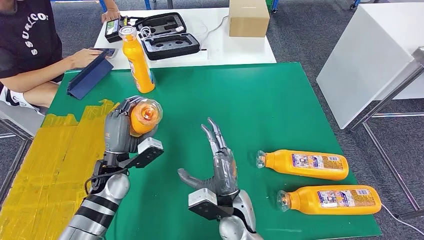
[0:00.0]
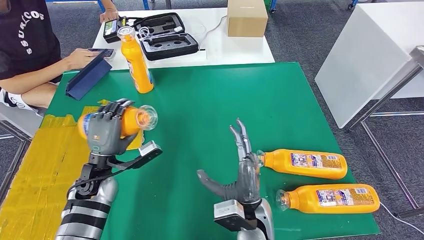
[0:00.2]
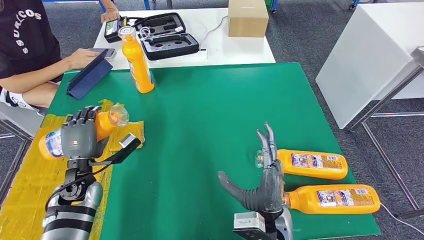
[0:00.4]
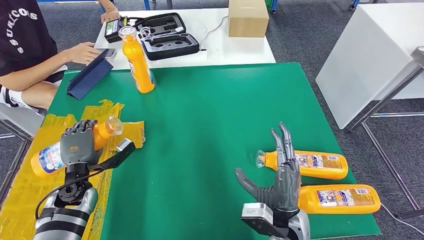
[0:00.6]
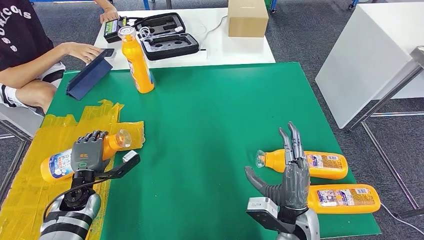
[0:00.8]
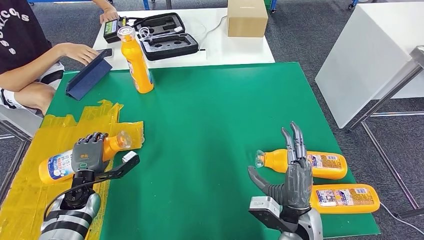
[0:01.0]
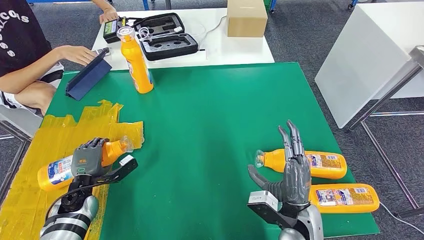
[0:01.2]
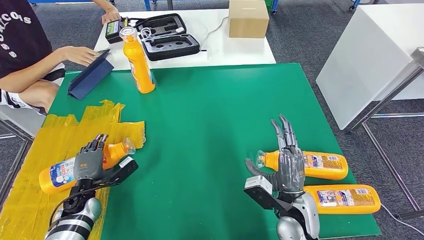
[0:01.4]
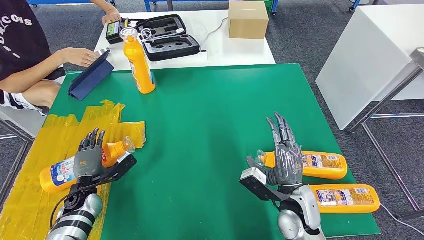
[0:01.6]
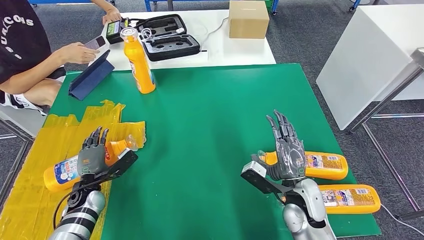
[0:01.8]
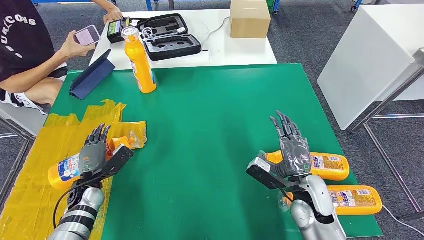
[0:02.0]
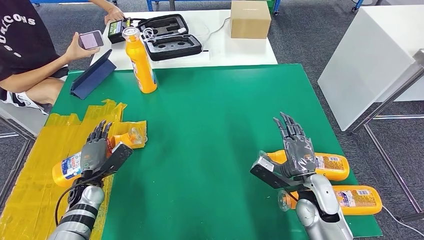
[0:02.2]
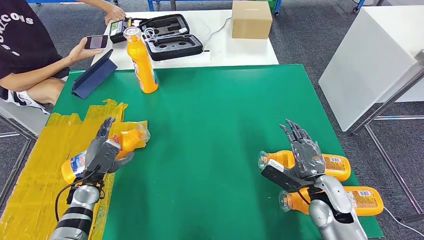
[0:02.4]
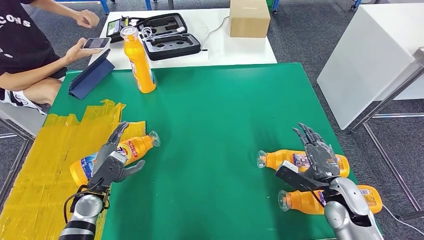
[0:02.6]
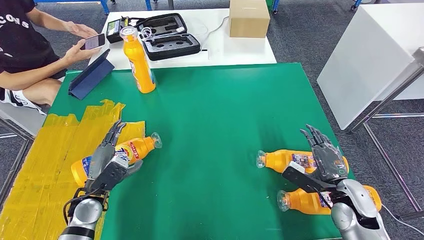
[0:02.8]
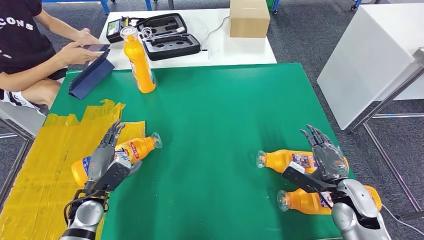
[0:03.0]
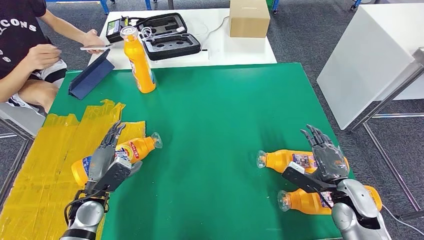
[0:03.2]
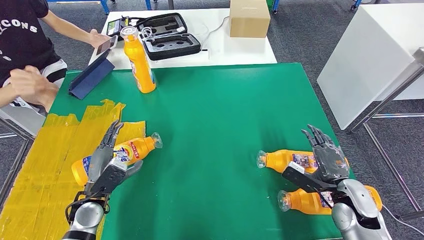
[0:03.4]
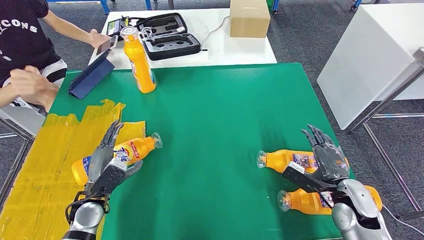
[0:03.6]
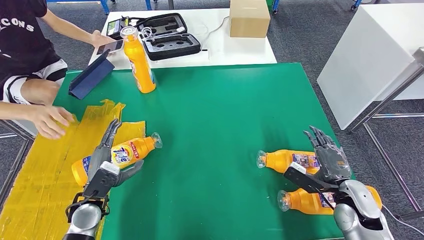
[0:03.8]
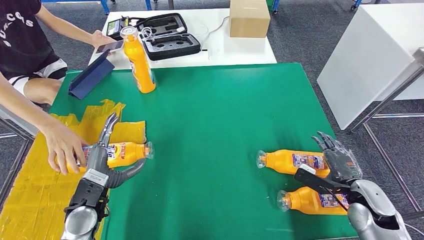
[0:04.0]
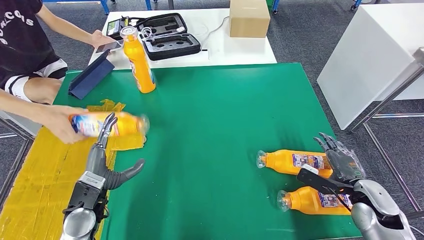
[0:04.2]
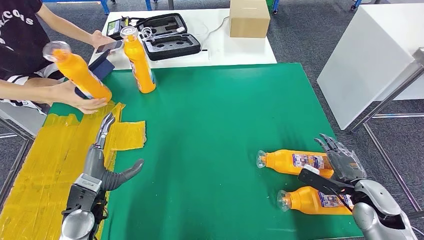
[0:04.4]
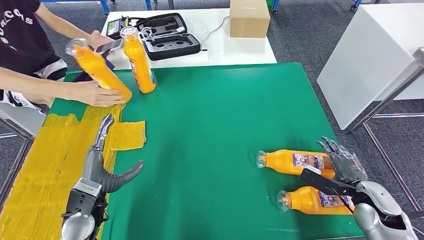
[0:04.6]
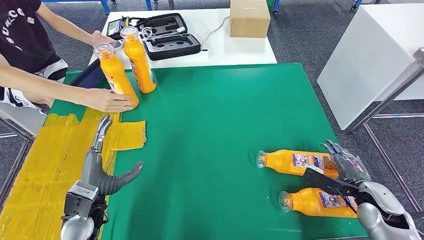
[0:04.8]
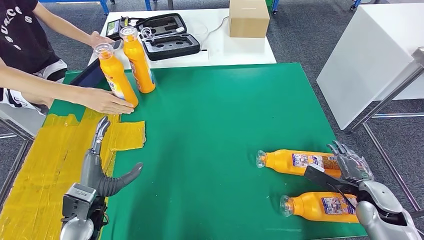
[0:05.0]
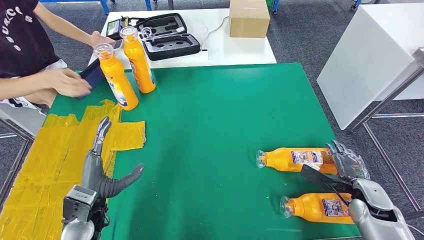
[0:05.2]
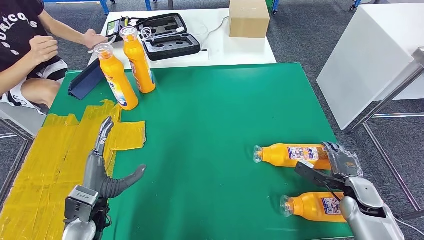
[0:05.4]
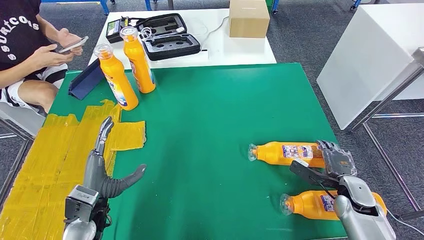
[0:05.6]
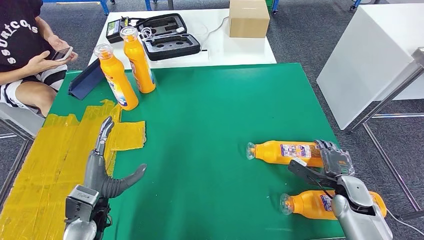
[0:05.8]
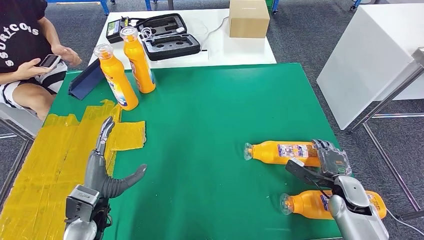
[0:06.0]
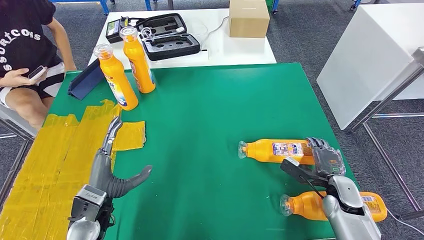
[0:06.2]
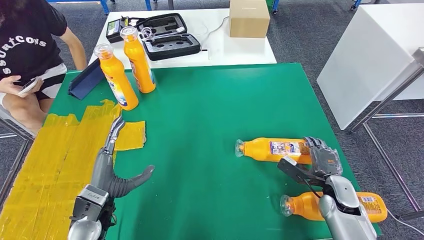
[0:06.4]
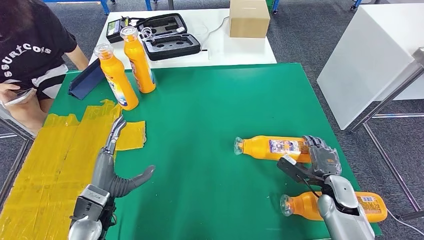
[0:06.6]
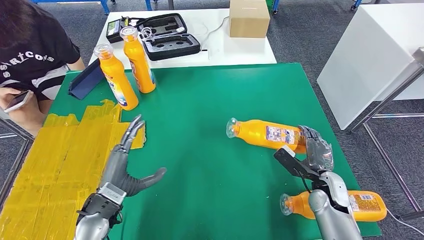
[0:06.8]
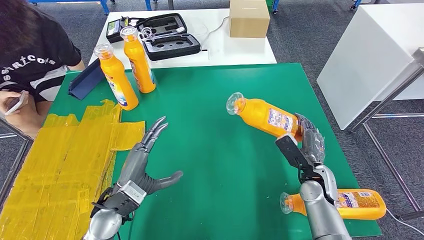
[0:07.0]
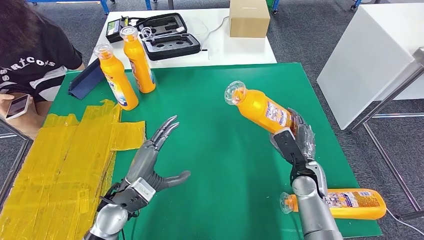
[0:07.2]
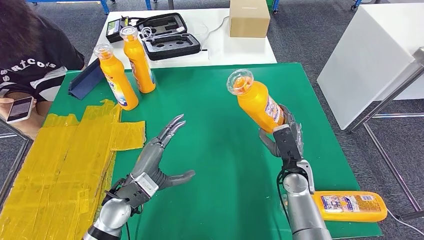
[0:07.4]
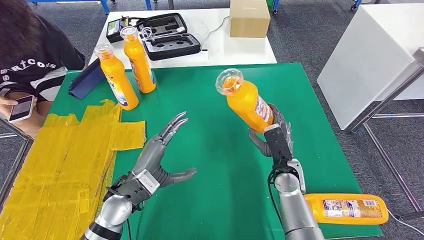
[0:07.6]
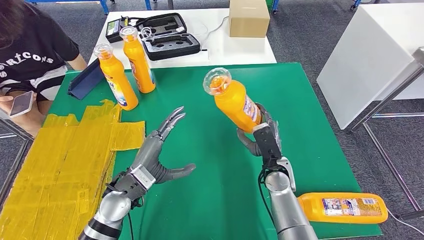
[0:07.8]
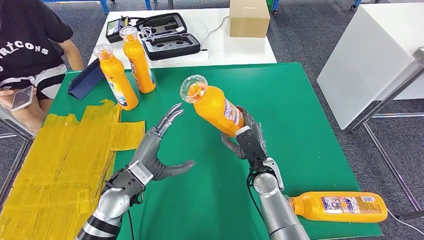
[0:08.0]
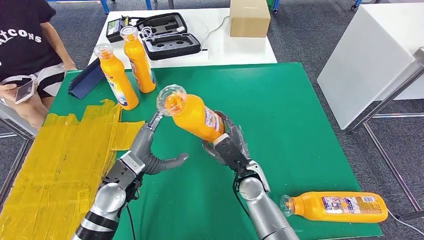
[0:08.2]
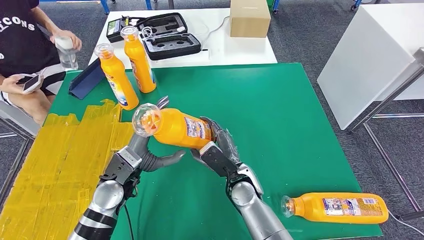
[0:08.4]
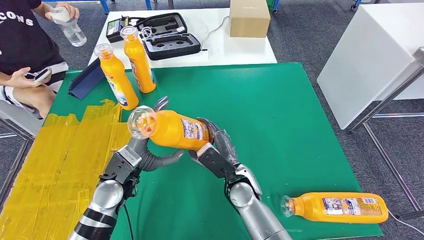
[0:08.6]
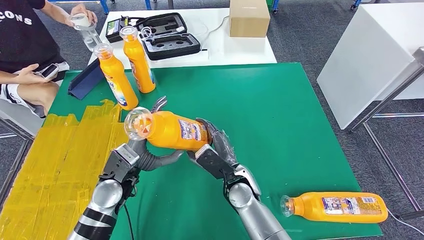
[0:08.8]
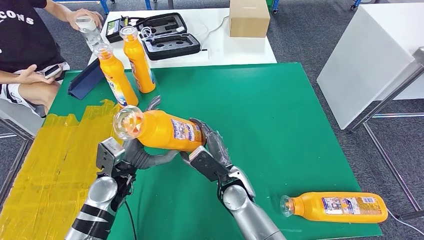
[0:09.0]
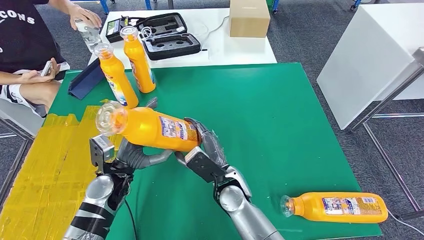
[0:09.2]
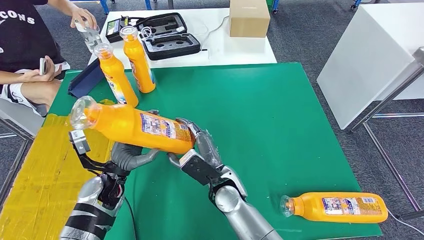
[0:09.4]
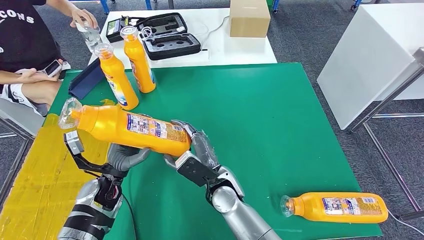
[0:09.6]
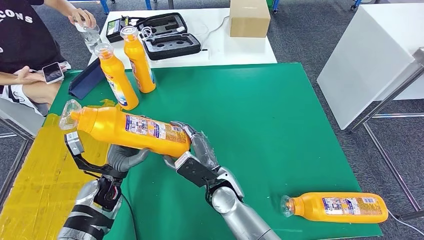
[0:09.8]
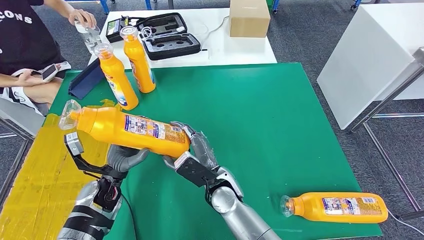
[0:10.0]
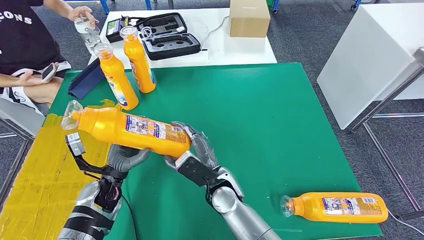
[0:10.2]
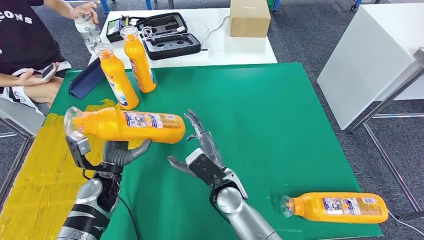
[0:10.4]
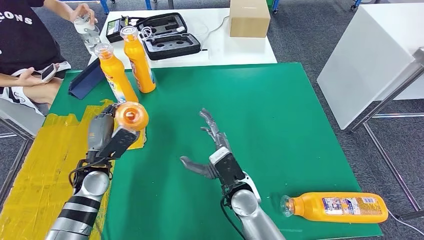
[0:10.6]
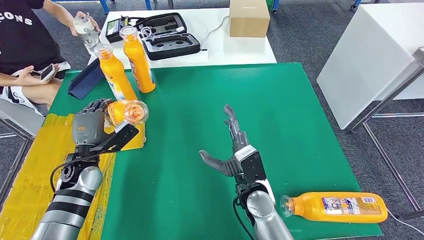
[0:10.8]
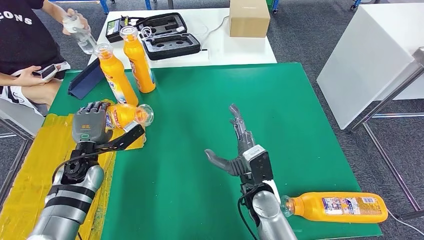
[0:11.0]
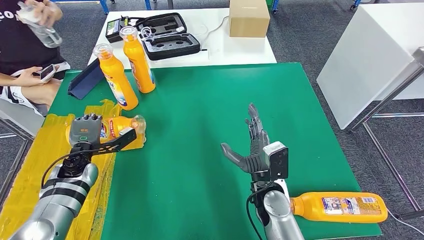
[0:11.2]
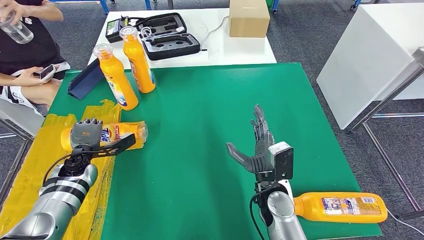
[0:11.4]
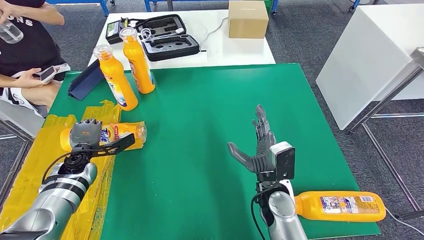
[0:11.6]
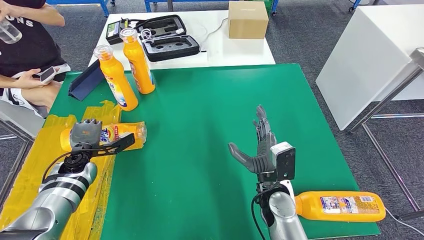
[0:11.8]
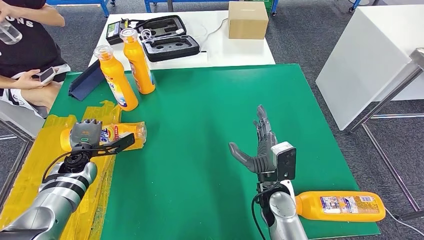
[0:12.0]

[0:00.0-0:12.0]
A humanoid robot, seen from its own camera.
Step, 0:00.0 to 0:02.8: Flip the fast-moving consumer goods bottle to the front side.
Step, 0:06.6 to 0:09.2: Pick up the fast-moving consumer goods bottle from the table.
0:03.0 to 0:04.4: The right hand goes approximately 5 cm to the right.
0:04.4 to 0:06.0: The right hand heads downward, covering roughly 5 cm.
0:09.0 to 0:10.4: The left hand shifts by roughly 5 cm.

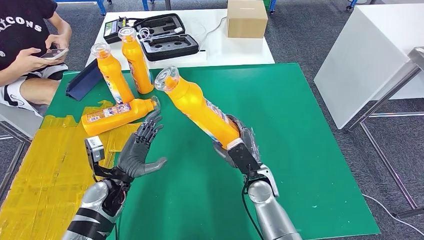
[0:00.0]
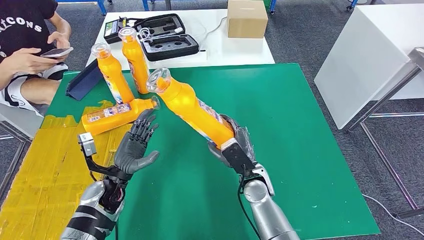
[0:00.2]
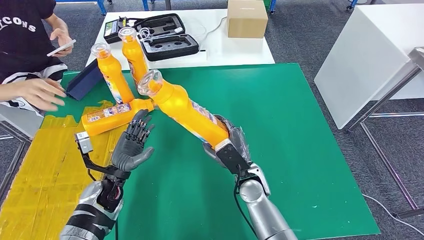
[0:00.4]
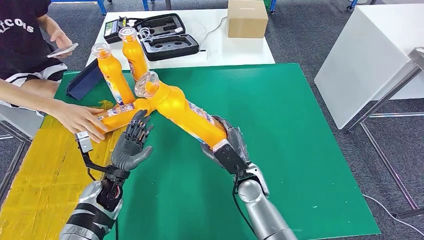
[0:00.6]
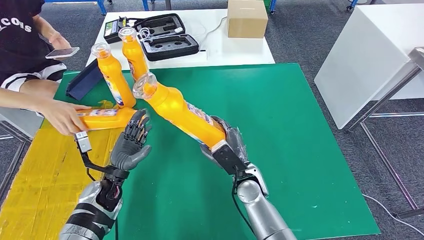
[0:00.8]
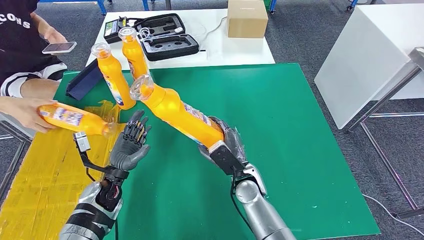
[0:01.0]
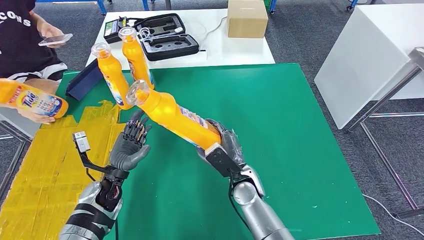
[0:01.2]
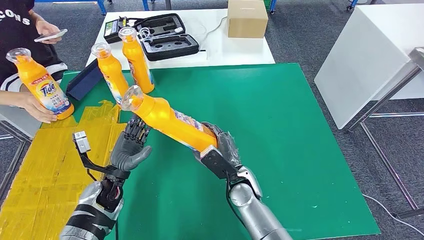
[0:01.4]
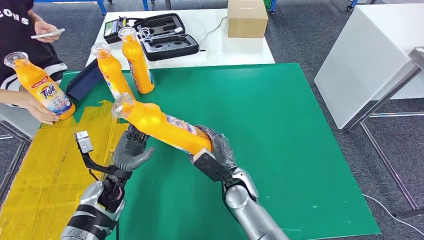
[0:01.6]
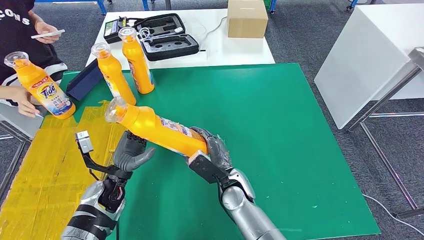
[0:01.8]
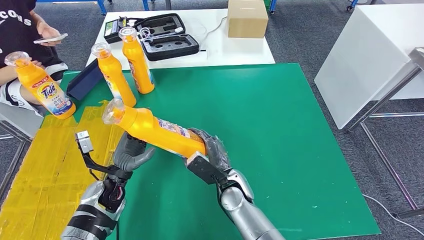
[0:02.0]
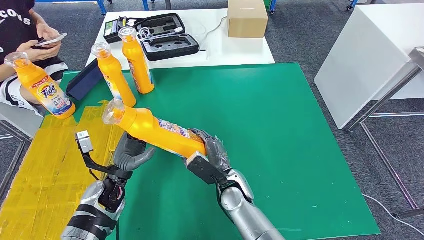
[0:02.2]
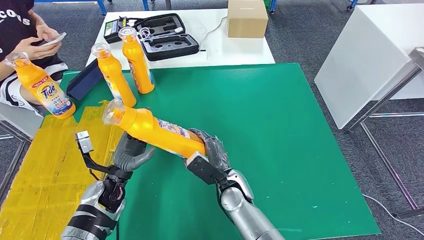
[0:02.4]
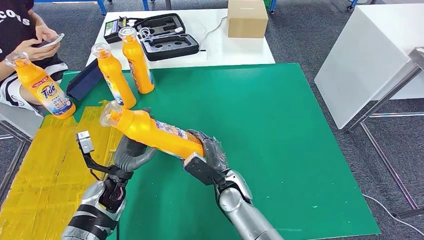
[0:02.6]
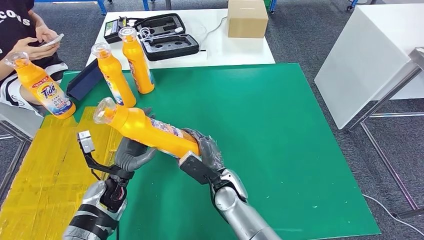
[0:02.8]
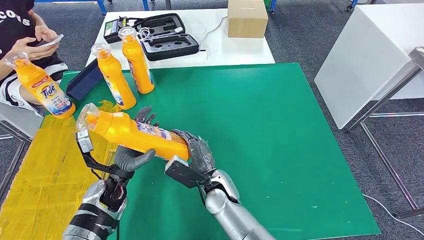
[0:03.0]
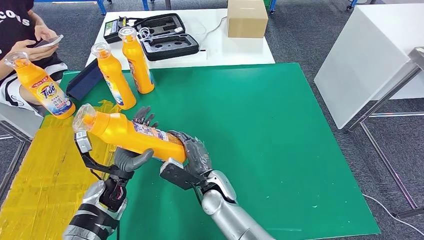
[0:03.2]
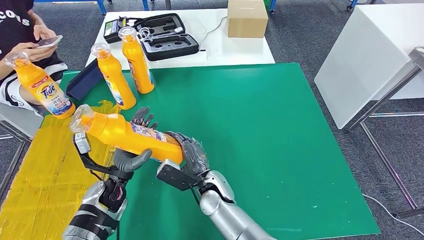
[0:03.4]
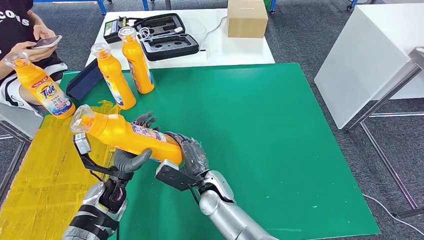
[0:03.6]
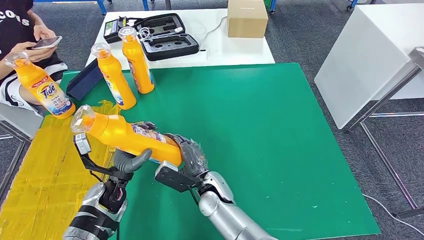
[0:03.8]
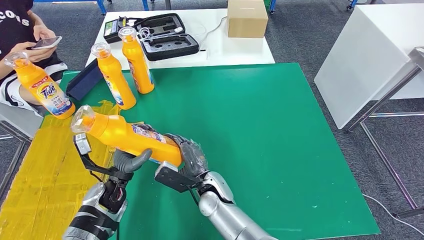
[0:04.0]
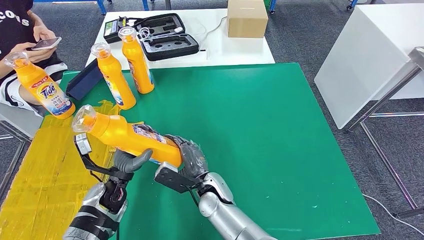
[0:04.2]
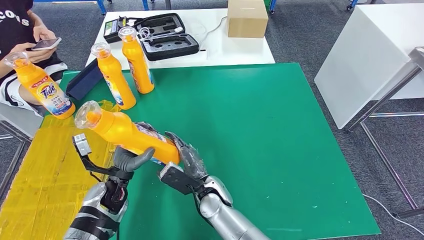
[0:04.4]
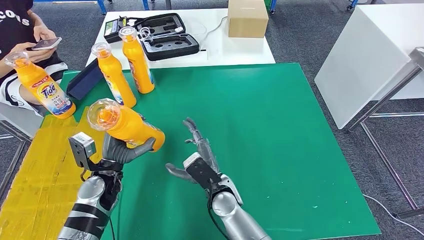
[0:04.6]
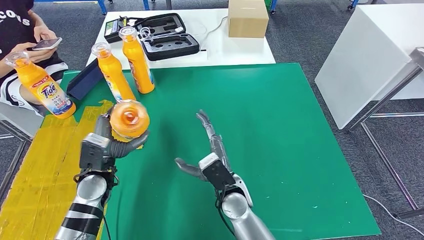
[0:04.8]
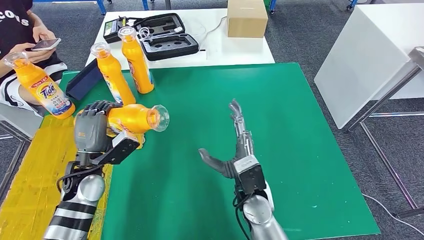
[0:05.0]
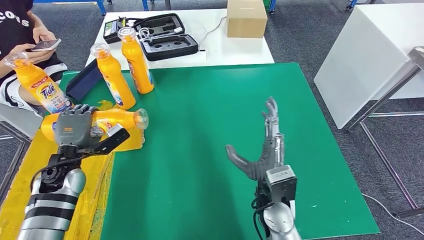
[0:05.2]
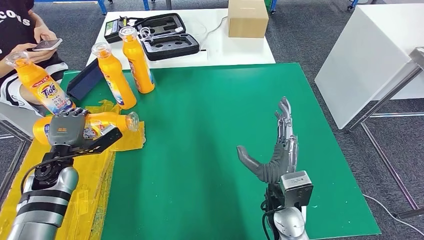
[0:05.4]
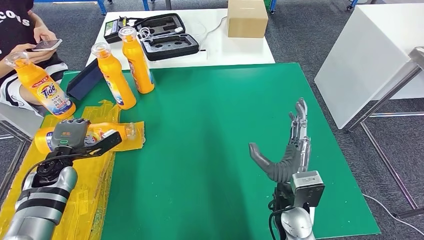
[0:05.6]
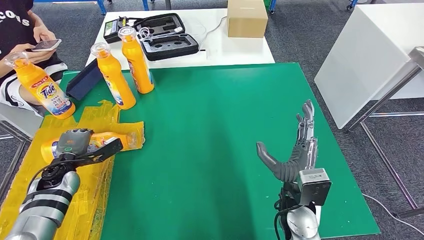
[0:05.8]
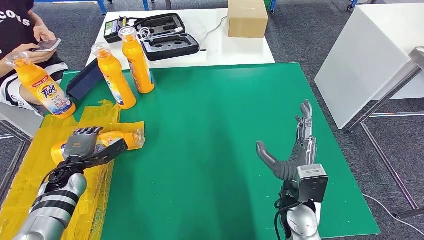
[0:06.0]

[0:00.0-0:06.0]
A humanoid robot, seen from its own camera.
0:00.0 to 0:01.6: The right hand goes about 5 cm to the left.
0:01.6 to 0:03.0: The right hand moves to the left, about 5 cm.
0:03.0 to 0:04.4: The hands move only a little.
0:04.4 to 0:06.0: The left hand travels to the left by about 15 cm. The right hand heads to the right and upward, covering approximately 20 cm.
